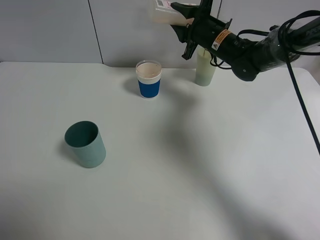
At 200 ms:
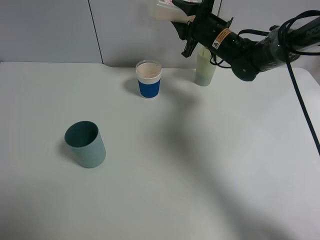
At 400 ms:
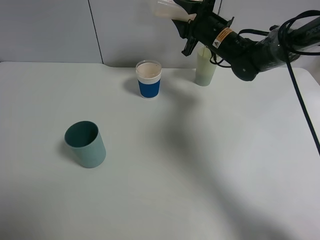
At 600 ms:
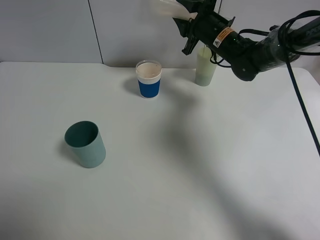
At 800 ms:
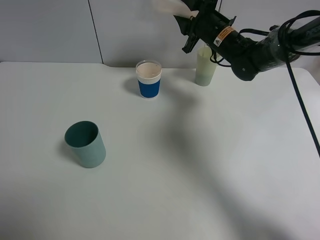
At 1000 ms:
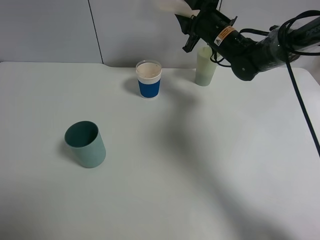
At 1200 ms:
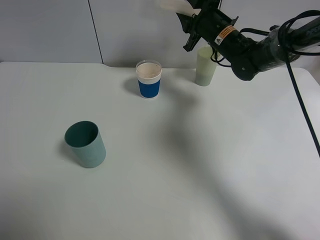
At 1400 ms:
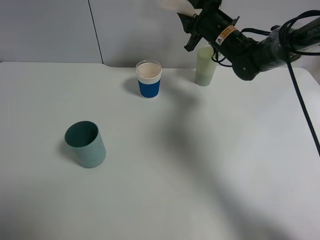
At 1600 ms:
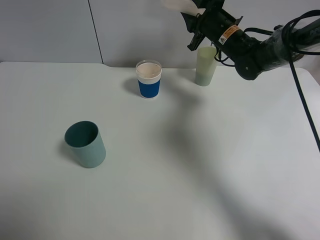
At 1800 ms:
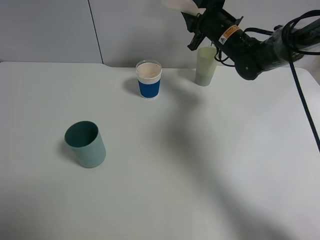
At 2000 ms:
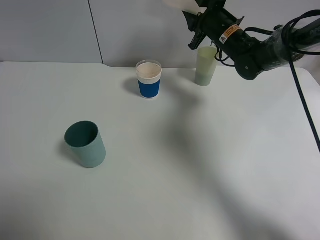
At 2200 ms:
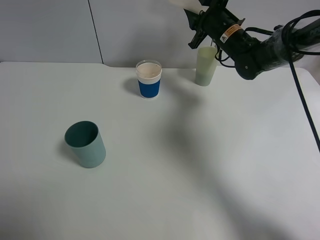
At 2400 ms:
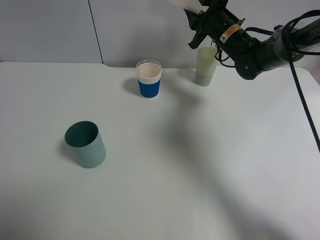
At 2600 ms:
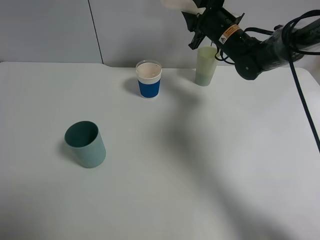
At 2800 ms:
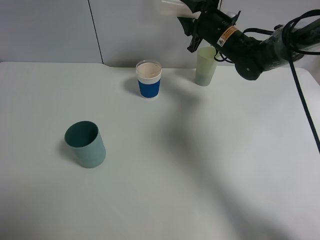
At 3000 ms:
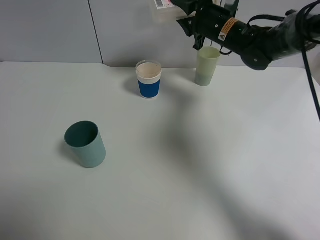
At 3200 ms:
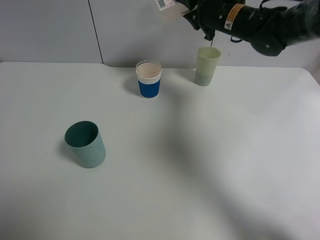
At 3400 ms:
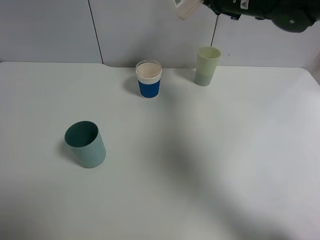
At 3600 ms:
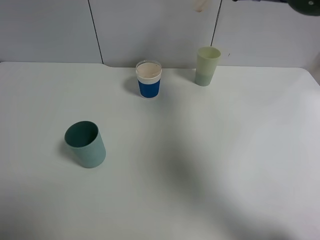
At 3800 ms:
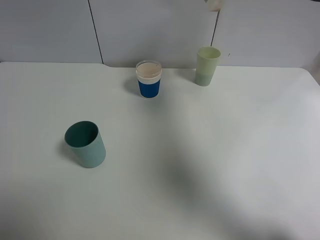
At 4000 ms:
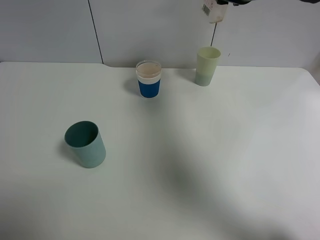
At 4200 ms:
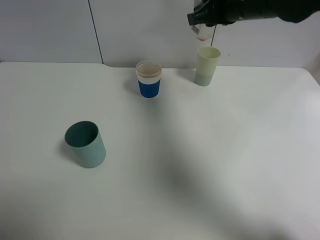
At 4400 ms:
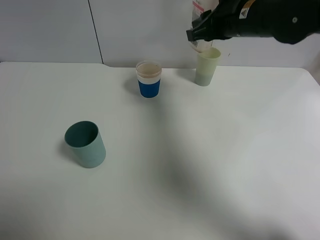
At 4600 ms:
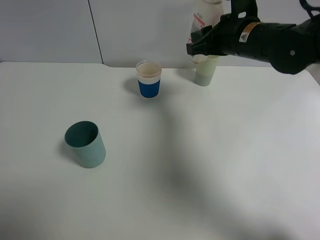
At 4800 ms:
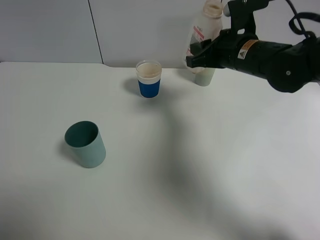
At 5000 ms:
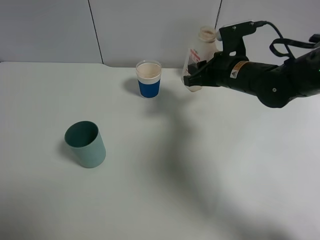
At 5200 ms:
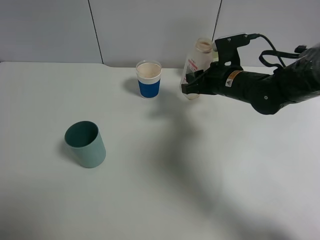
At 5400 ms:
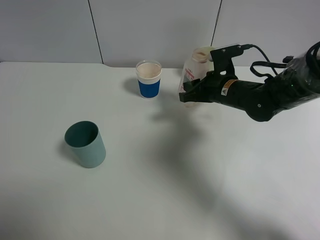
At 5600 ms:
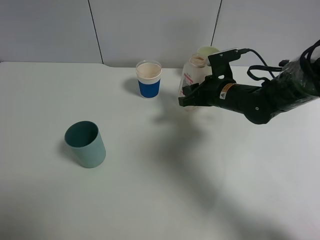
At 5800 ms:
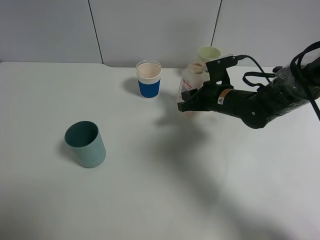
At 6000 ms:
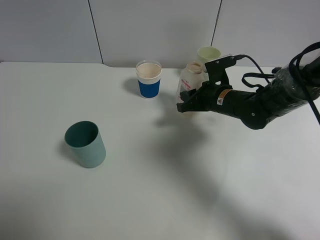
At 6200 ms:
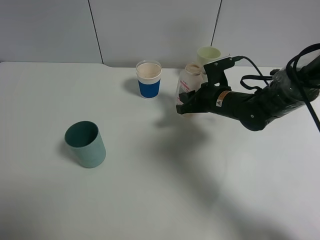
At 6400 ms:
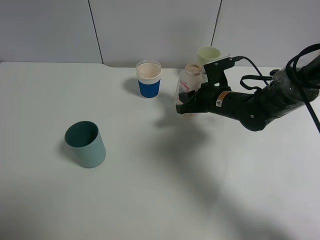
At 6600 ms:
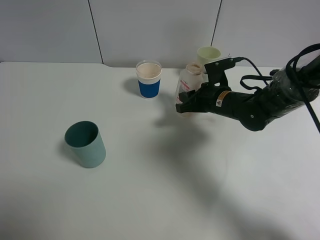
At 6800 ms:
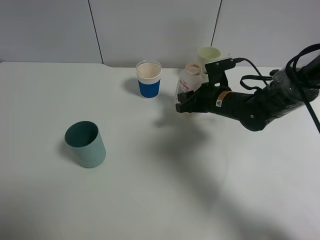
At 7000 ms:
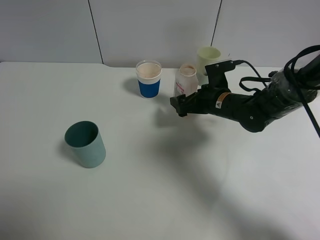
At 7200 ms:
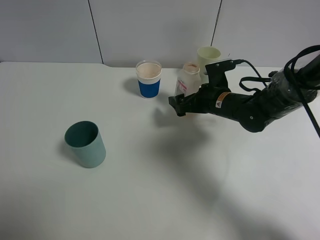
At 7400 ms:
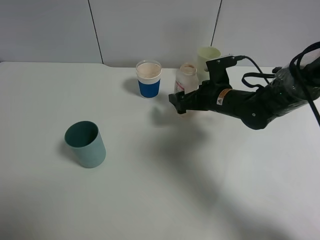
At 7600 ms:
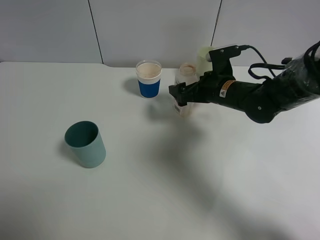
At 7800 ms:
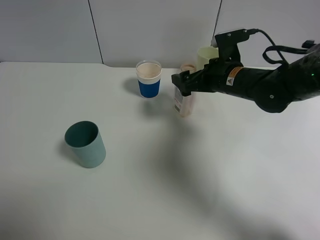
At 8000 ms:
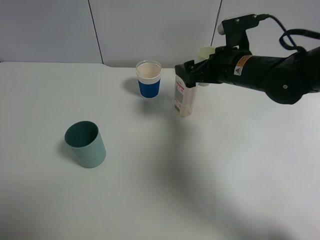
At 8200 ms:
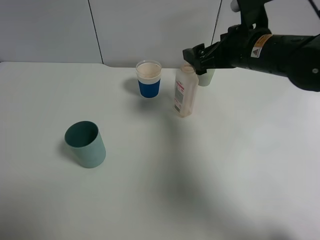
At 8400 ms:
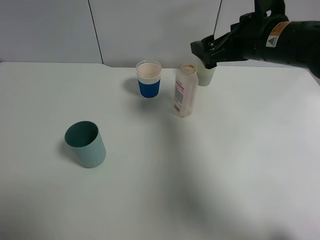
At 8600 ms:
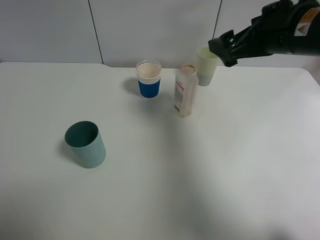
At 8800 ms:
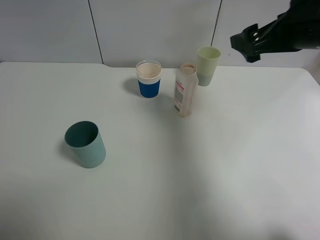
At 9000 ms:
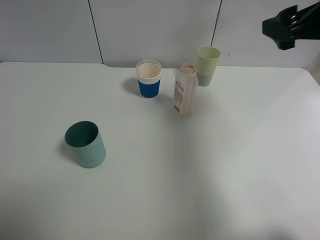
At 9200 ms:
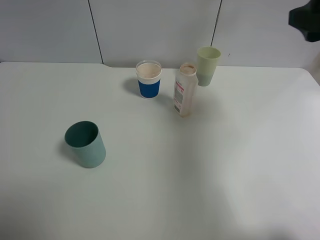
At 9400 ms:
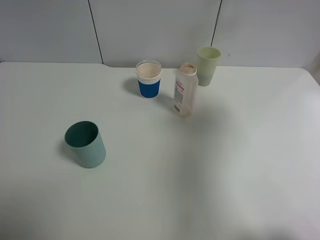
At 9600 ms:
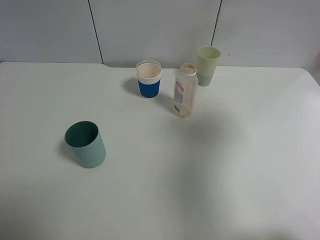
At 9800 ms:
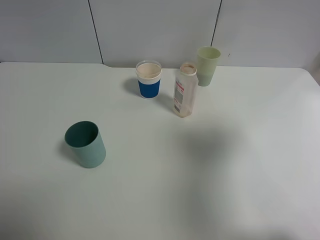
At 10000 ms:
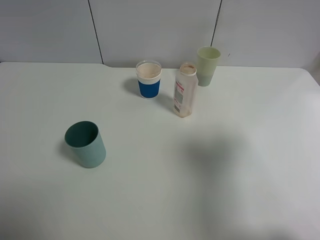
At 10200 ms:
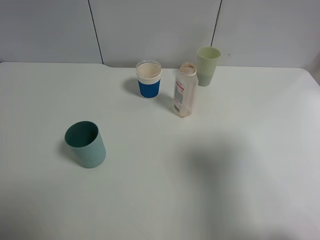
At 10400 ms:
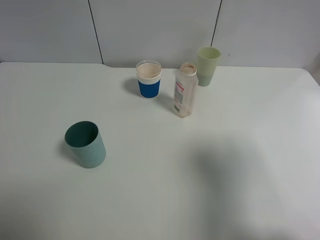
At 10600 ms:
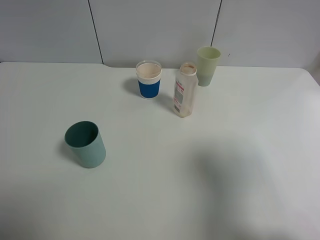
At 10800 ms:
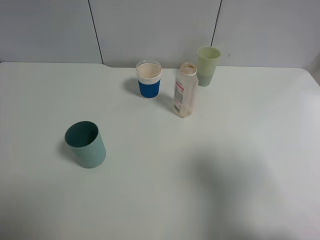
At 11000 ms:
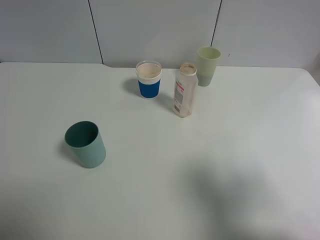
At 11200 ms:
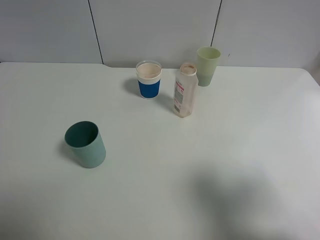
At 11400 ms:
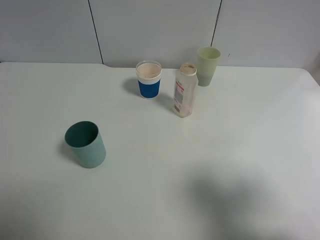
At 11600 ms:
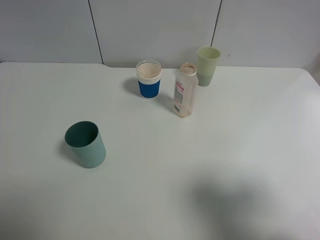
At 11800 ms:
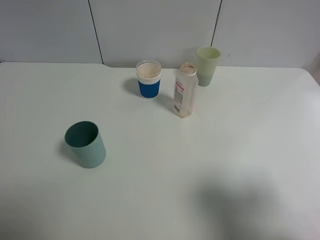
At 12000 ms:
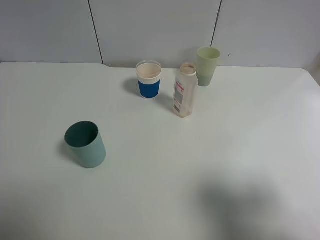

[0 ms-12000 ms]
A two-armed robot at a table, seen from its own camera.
Task of the whole recording: use a gripper to hold the bottle of the drink and pour it into a random cup.
Step, 0 ms to 3000 ms: Pour the cranberry juice into the White Plastic Cup with the right gripper.
Step, 3200 ms to 7200 ms: Place the cranberry juice bottle on the table with the right gripper.
0 ms to 1600 ms: There are only small adjustments of the grippers.
3000 ms to 4400 ms: The right gripper heads backward, covering some 10 cm, and moves approximately 10 cm upward and comes back.
4400 ms to 6000 ms: The right gripper goes approximately 15 cm downward.
6000 ms to 7600 ms: The right gripper opens up.
7600 ms to 9000 ms: The right gripper travels upward, to the right and backward by approximately 25 cm.
9000 ms to 10400 ms: The right gripper shifts about 15 cm backward.
10400 ms to 12000 ms: The right gripper is displaced backward by approximately 5 cm.

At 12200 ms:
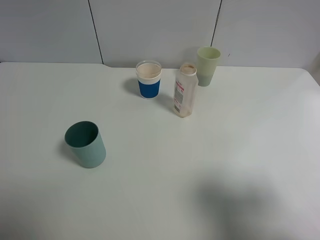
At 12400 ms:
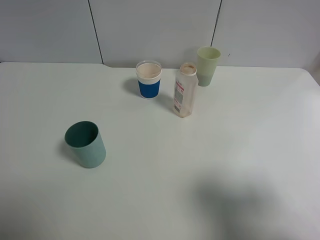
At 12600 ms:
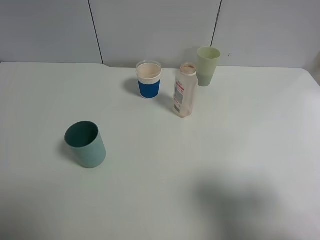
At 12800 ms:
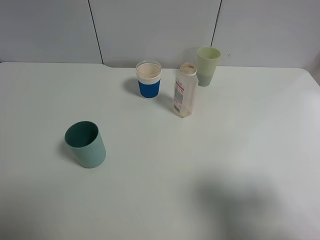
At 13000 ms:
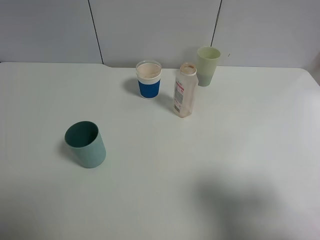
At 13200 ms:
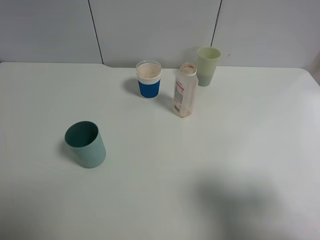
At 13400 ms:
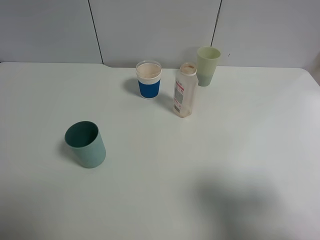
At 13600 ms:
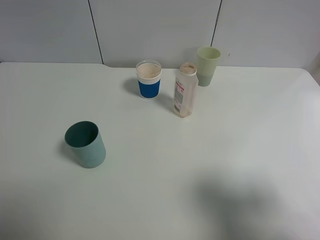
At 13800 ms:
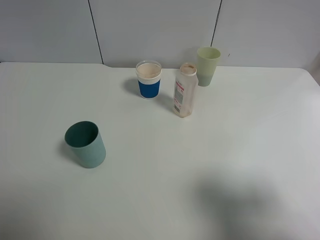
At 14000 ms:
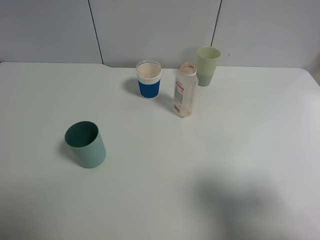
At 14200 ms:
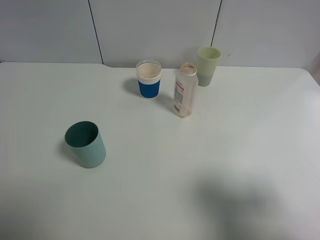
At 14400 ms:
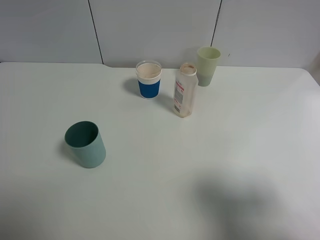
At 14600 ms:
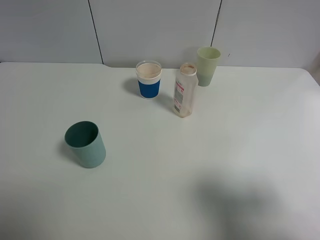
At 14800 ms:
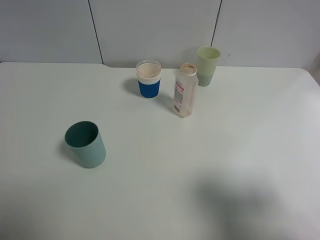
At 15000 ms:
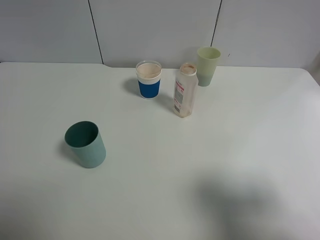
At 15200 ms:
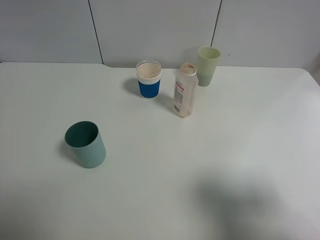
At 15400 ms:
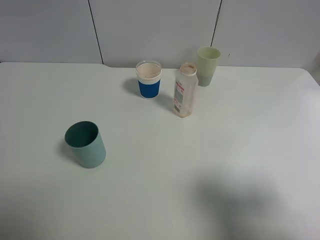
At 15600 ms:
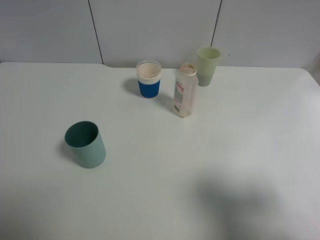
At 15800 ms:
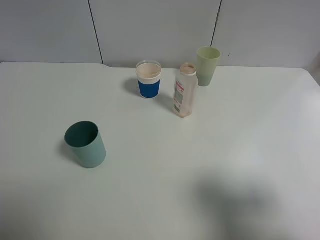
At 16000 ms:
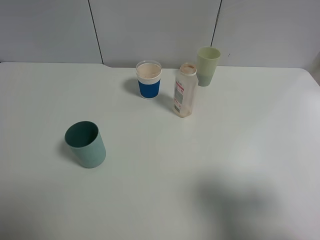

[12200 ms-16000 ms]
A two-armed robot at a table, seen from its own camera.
Task of the whole recording: use a gripper to hold the bottle of the drink and pour it into a random cup.
12200 ms to 16000 ms: Both grippers stay about where they are.

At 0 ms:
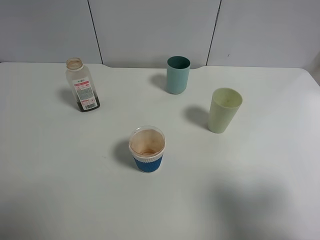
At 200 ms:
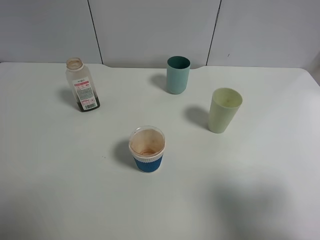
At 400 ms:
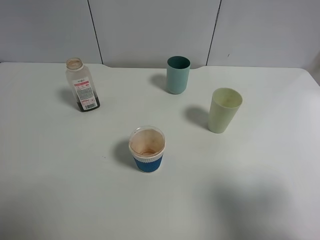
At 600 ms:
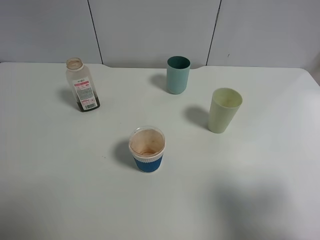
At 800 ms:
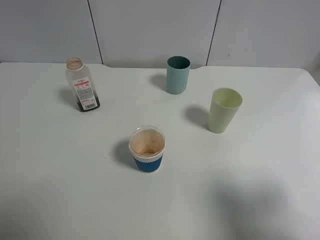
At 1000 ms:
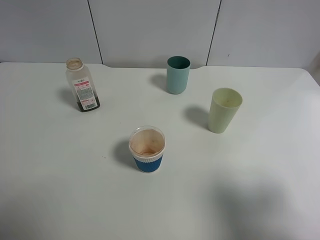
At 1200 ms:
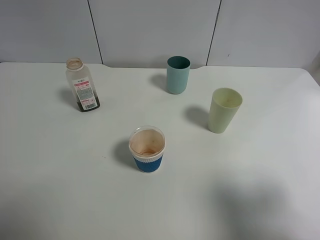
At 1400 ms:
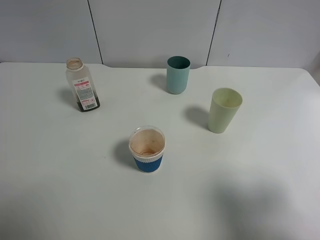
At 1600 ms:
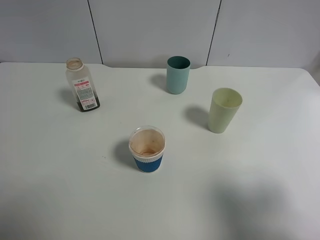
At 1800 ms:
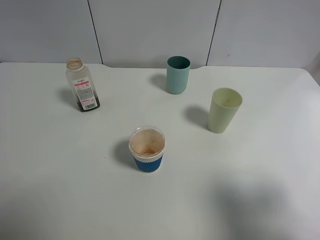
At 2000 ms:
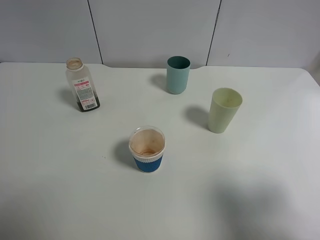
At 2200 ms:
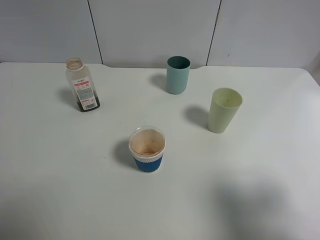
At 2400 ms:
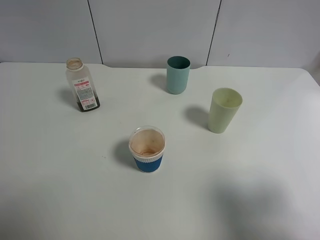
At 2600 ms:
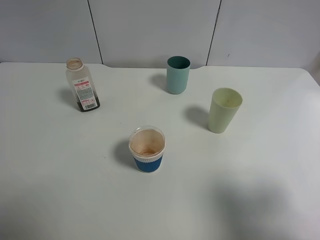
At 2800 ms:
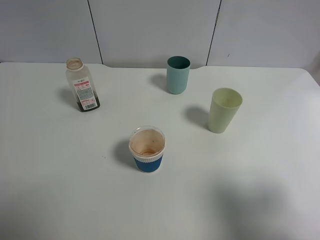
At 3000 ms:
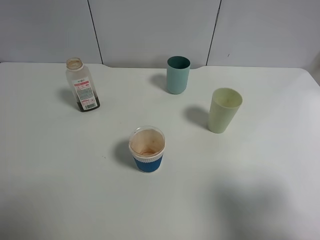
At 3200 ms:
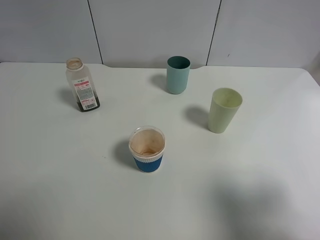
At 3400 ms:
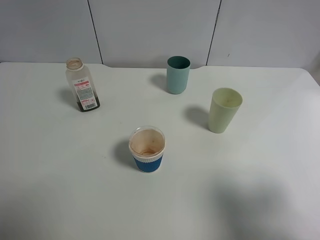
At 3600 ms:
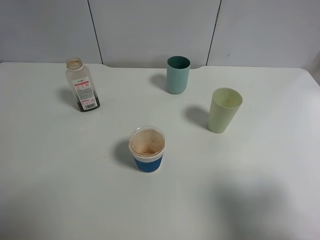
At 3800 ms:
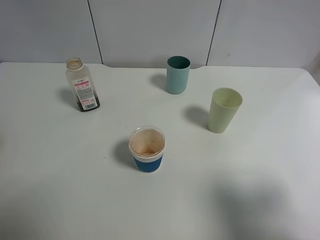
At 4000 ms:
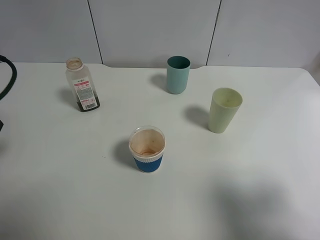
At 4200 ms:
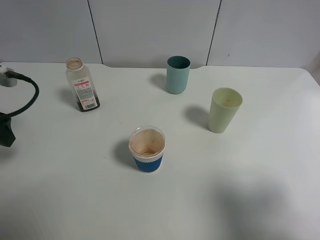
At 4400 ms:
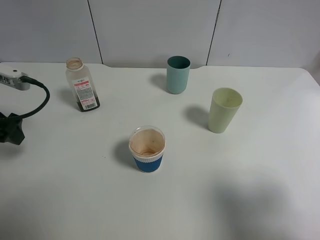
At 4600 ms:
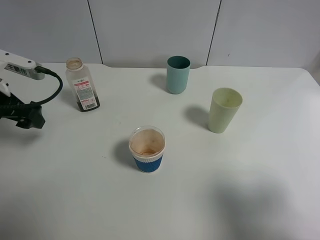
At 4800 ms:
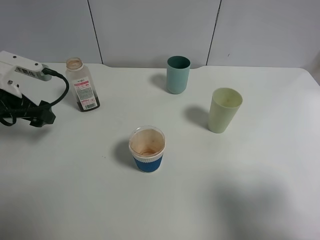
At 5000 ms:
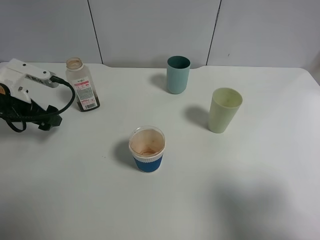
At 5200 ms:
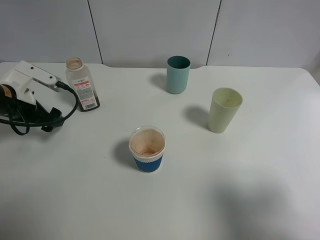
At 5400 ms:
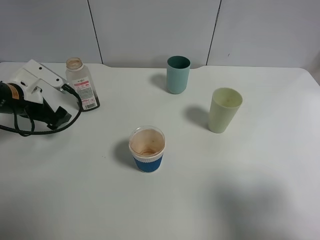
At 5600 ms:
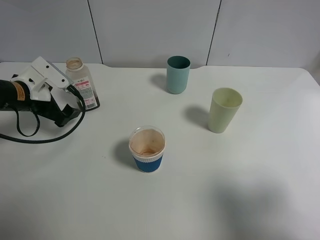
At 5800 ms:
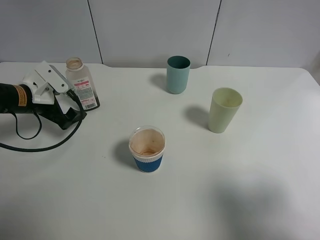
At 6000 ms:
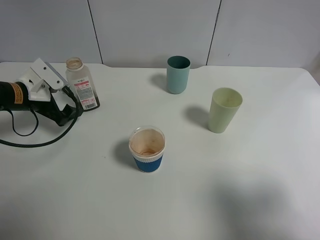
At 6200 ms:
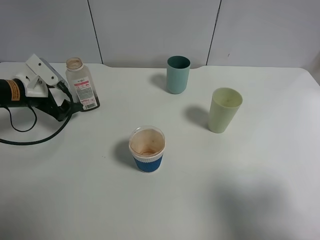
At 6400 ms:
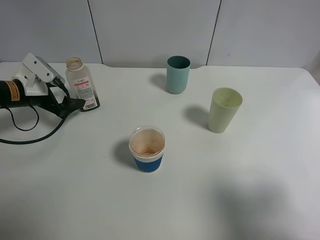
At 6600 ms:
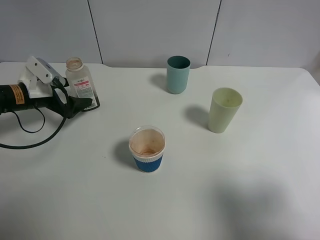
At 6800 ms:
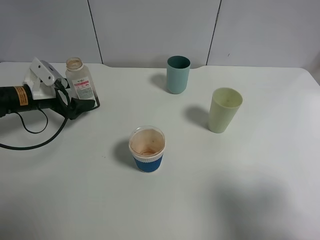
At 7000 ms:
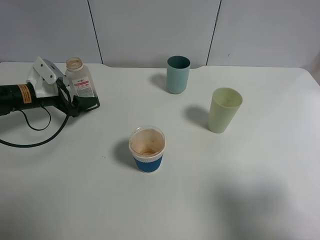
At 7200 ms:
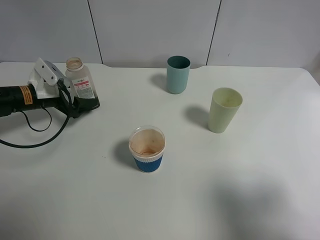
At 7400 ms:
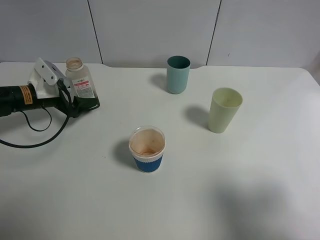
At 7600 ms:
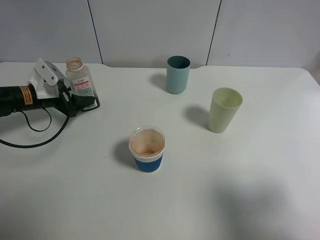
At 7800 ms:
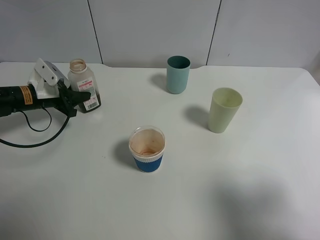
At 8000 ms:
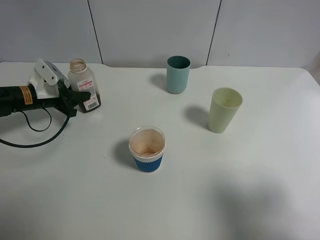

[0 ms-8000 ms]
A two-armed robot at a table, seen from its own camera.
Task of the whole recording: use a gripper to hold the bottle of the drink and pour it into a random cup.
0 ms to 1600 ms: Both grippers stay put.
3200 ms to 4800 ms: The left gripper is displaced forward and downward by roughly 25 cm.
4800 ms to 6400 ms: The left gripper is displaced forward and downward by roughly 10 cm.
6400 ms to 8000 ms: The left gripper closes up.
